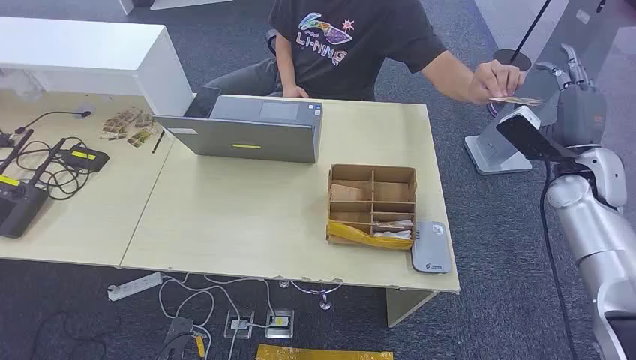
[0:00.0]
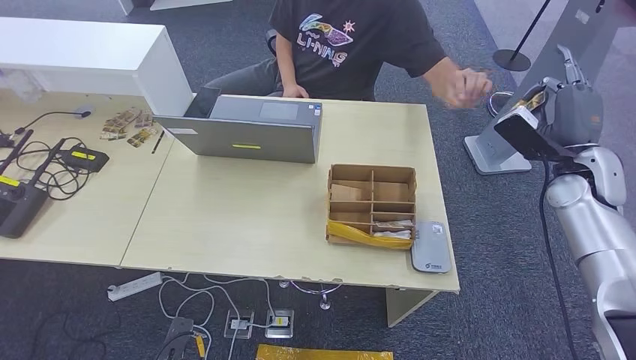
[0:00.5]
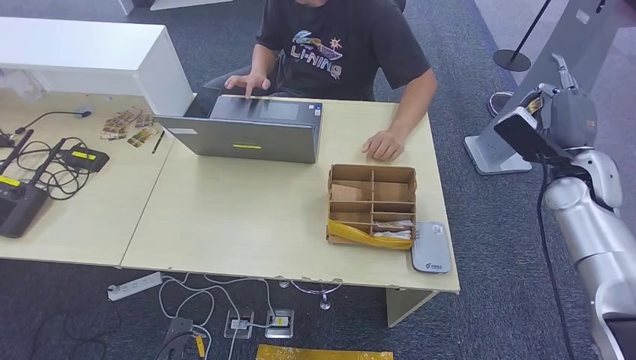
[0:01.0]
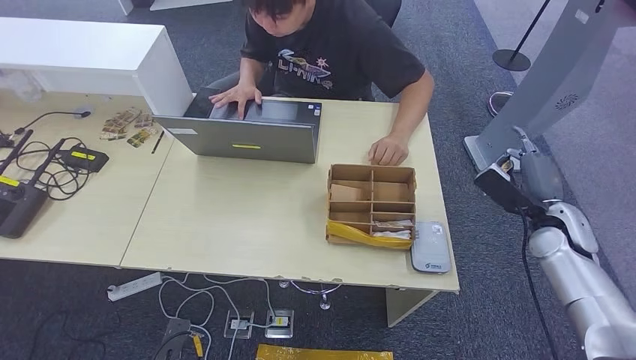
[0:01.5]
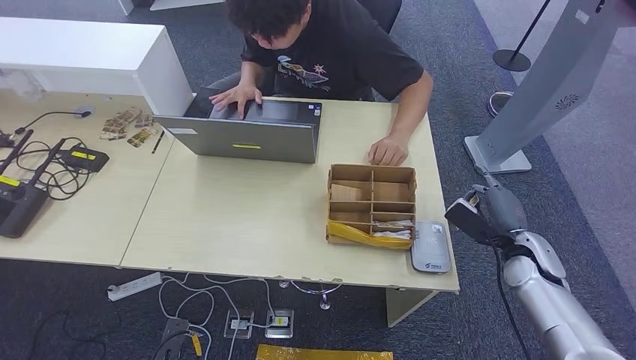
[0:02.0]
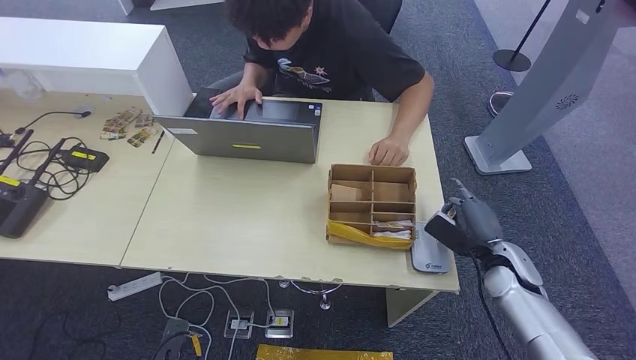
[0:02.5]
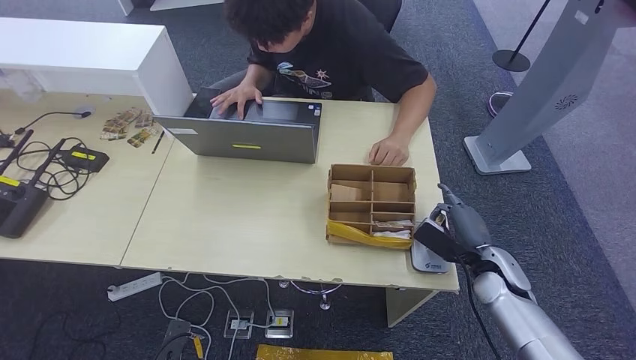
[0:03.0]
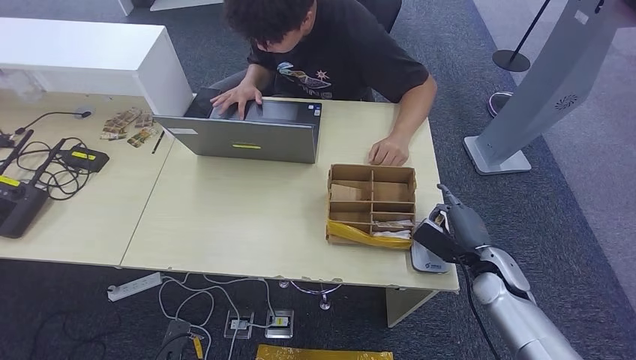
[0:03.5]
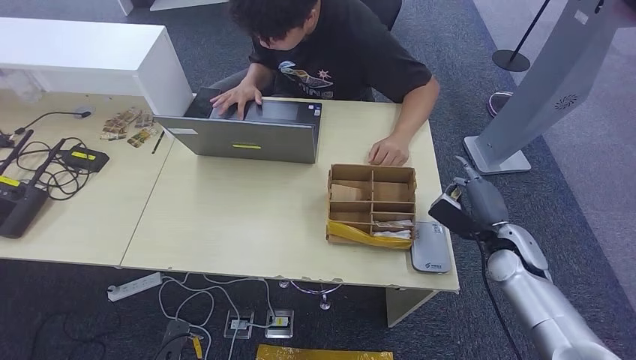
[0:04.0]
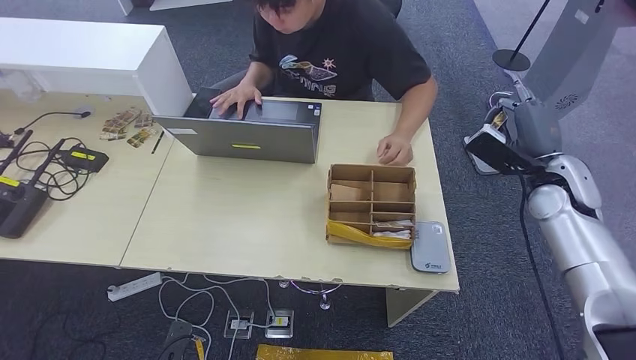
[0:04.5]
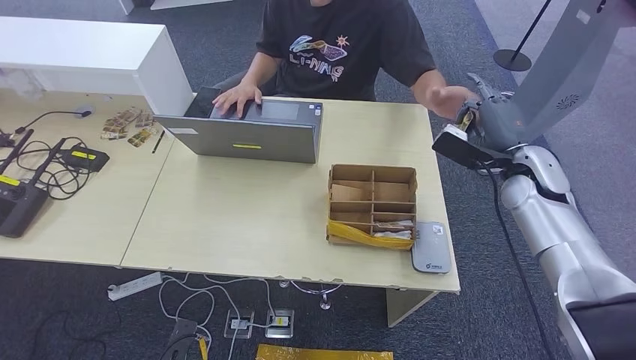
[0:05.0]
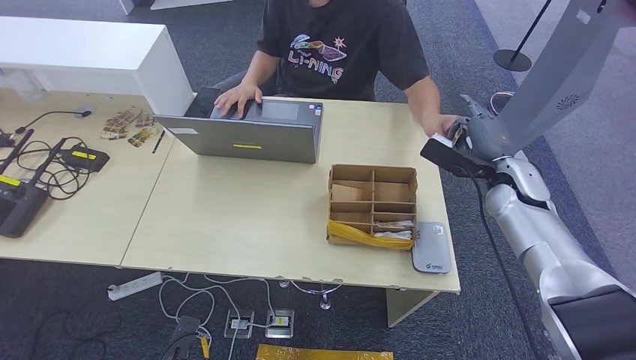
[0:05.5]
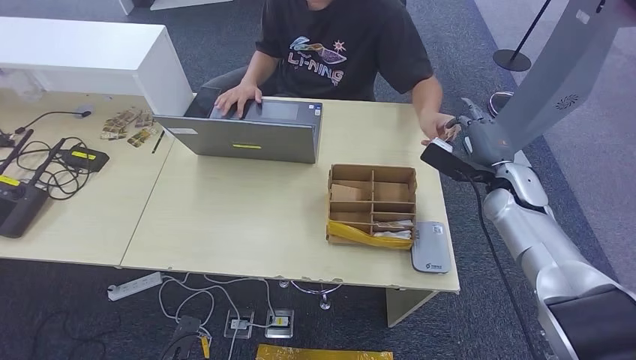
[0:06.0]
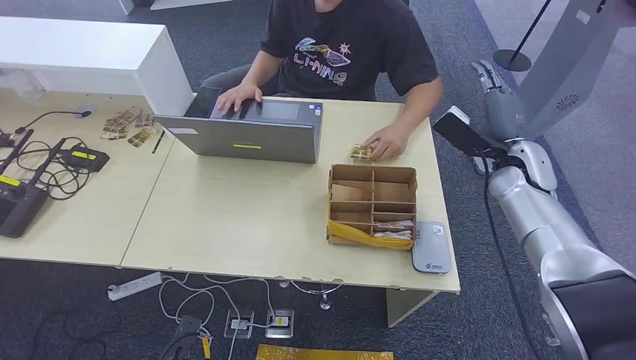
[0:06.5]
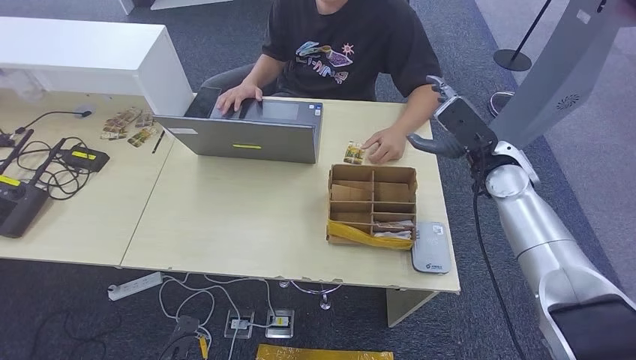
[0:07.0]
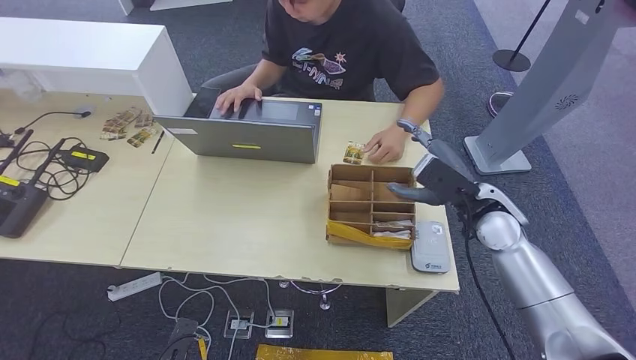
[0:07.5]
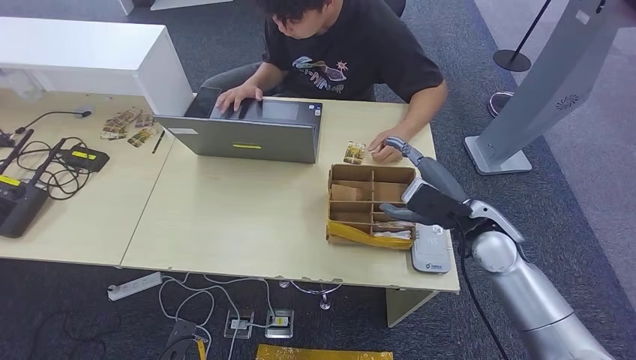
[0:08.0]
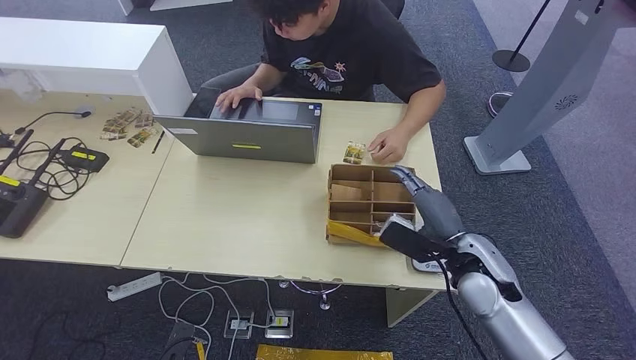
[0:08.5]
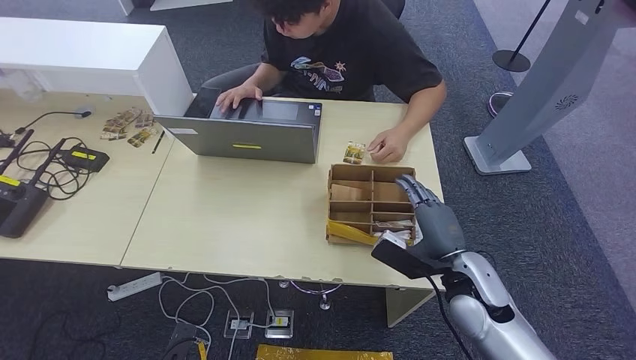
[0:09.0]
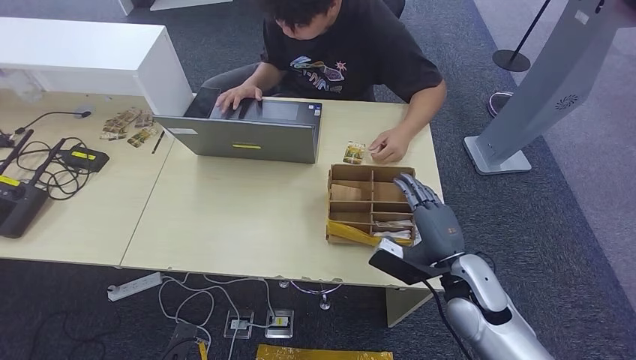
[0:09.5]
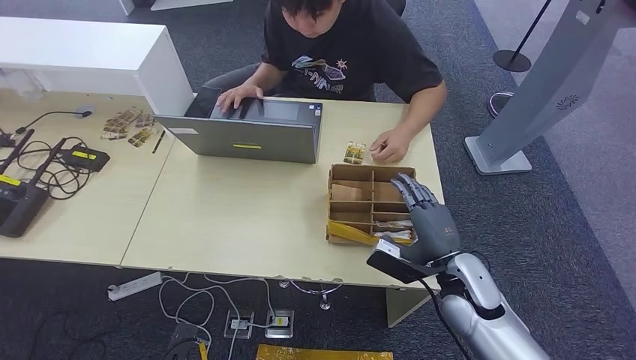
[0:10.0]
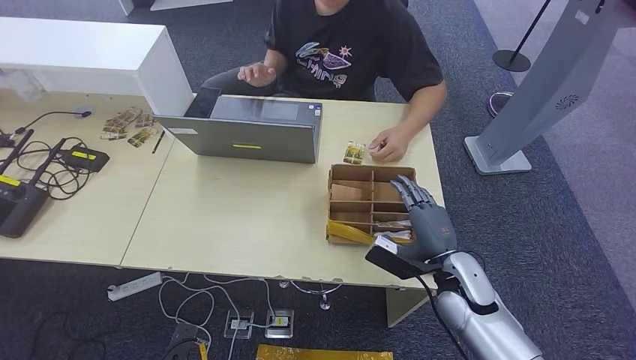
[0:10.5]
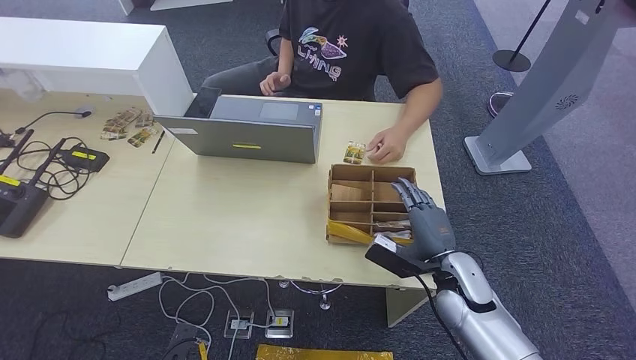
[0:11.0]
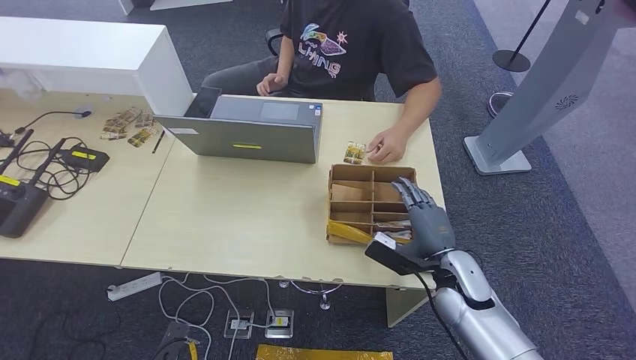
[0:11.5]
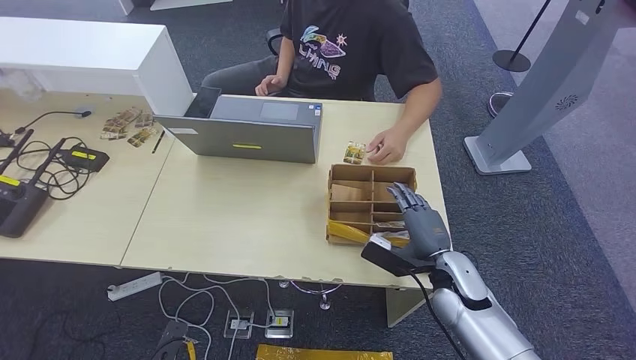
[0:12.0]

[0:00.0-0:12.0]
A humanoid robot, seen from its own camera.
Step, 0:00.0 to 0:01.0: Take the ID card from the person's hand.
Step, 0:02.5 to 0:03.5: Place the ID card on the card reader.
Step, 0:05.0 to 0:06.5: Hand the ID card to the person.
0:04.0 to 0:06.0: The right hand moves upward and forward, about 10 cm.
0:06.0 to 0:08.0: The right hand shifts about 10 cm backward and to the left.
0:08.0 to 0:10.0: The right hand heads downward and backward, covering approximately 10 cm.
0:10.0 to 0:12.0: The hands move only a little.

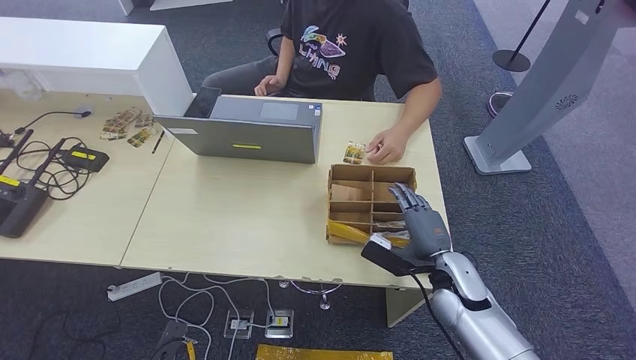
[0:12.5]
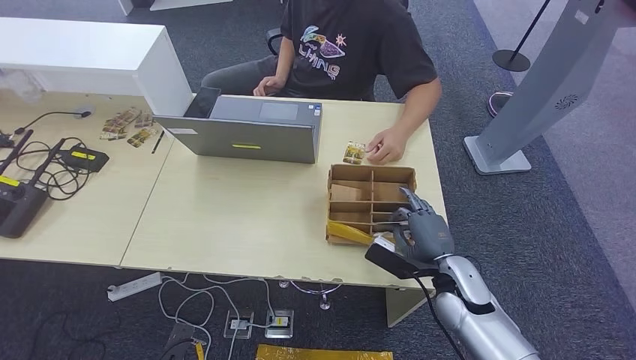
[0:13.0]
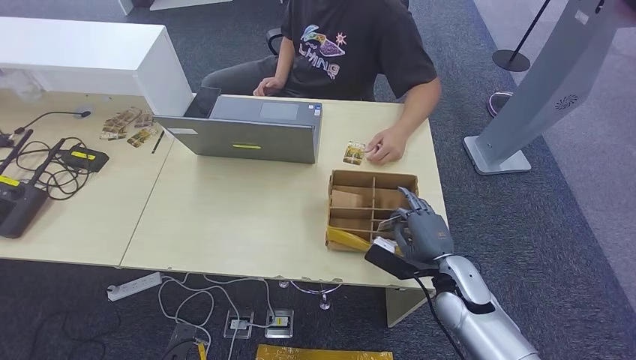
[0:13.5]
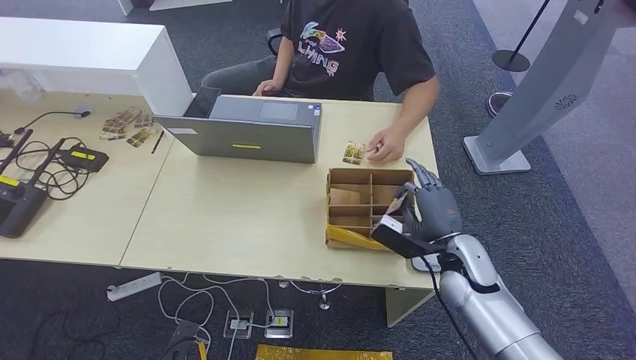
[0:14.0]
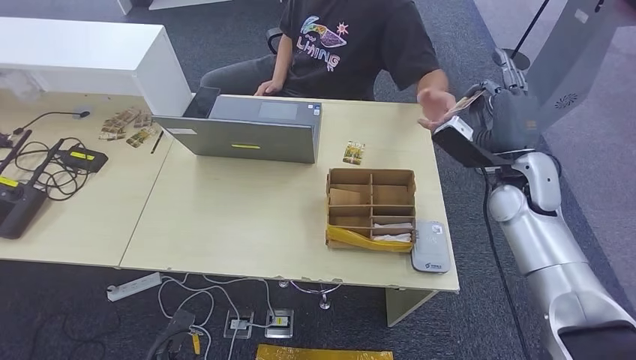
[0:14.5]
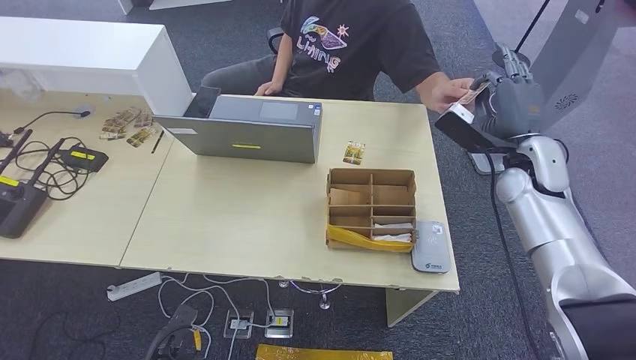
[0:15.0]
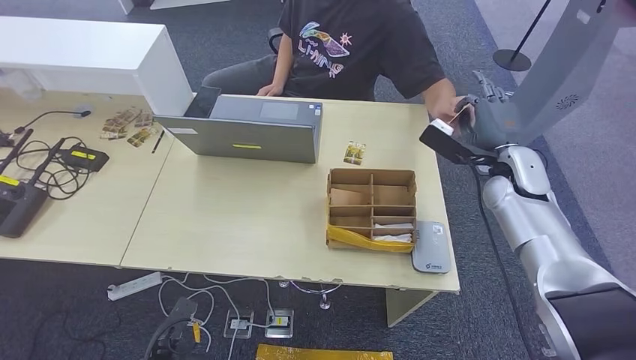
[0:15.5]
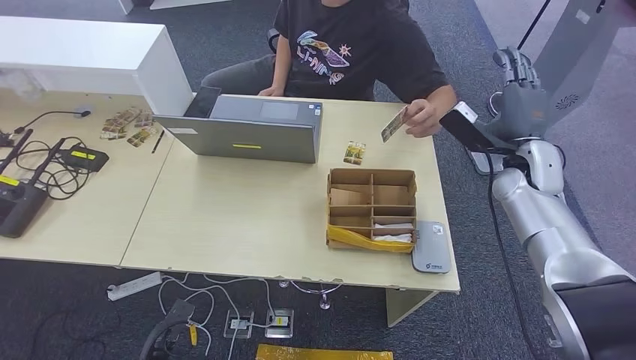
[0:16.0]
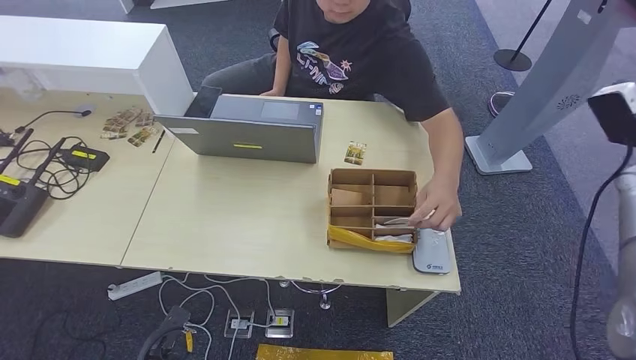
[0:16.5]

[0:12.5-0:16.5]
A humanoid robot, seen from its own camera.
Step, 0:13.0 to 0:14.5: Pick up the room key from the key card box.
Step, 0:15.0 to 0:16.5: Hand the room key to the person.
0:12.5 to 0:14.5: The right hand goes about 20 cm upward, forward and to the right.
0:14.5 to 0:16.5: The right hand moves to the right, roughly 15 cm.
